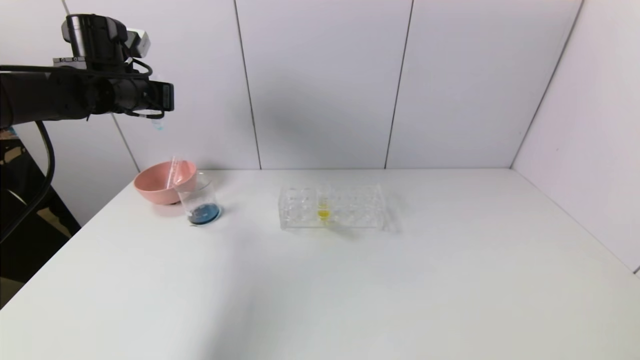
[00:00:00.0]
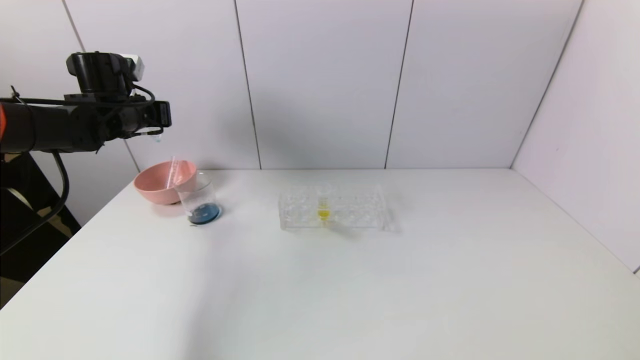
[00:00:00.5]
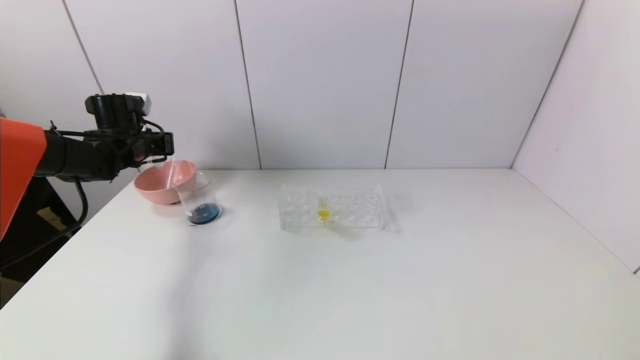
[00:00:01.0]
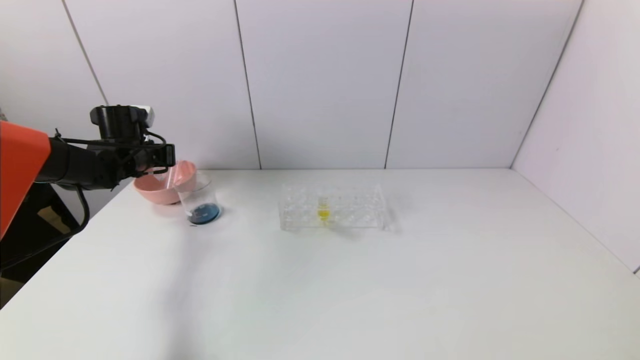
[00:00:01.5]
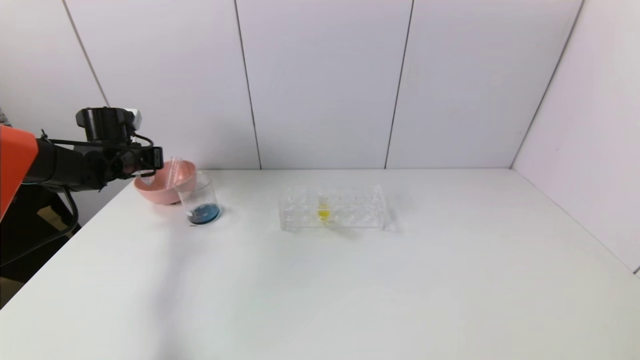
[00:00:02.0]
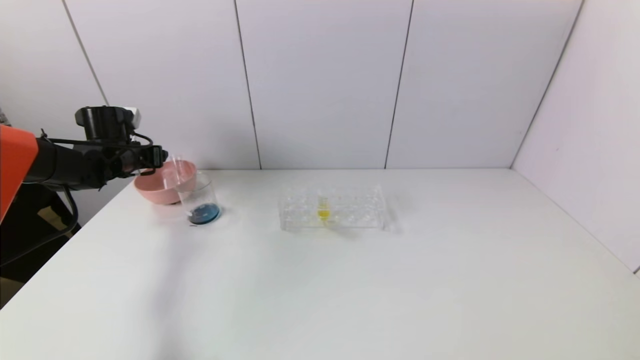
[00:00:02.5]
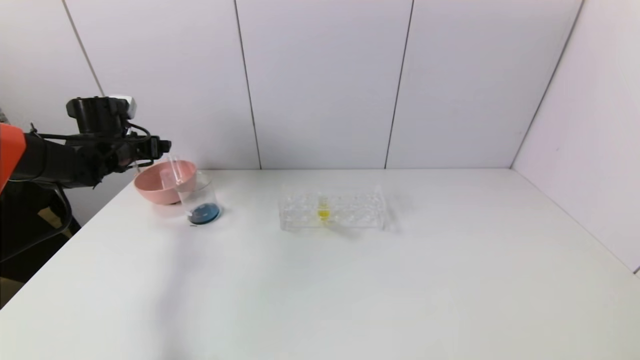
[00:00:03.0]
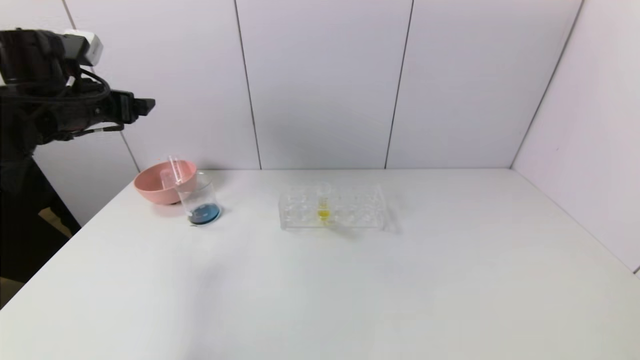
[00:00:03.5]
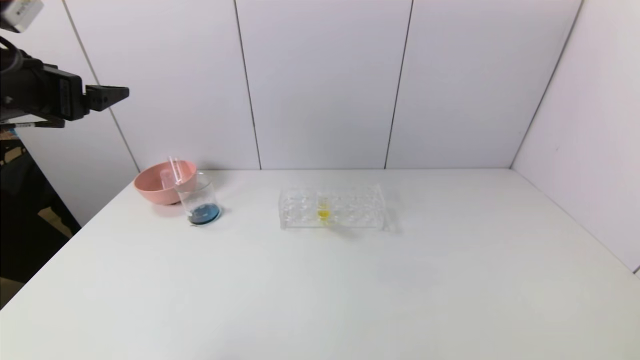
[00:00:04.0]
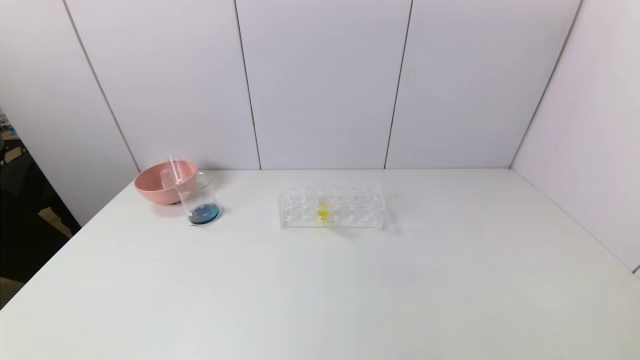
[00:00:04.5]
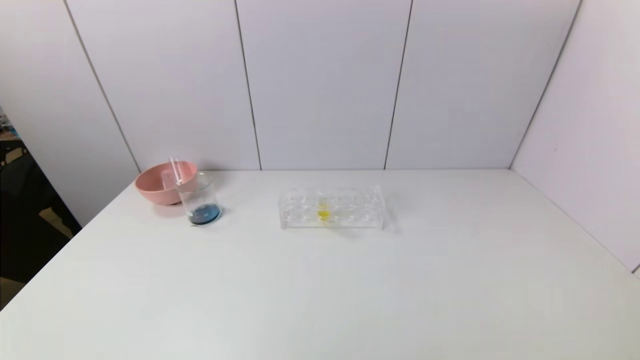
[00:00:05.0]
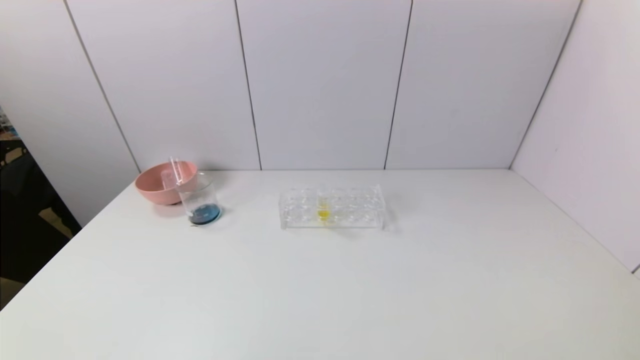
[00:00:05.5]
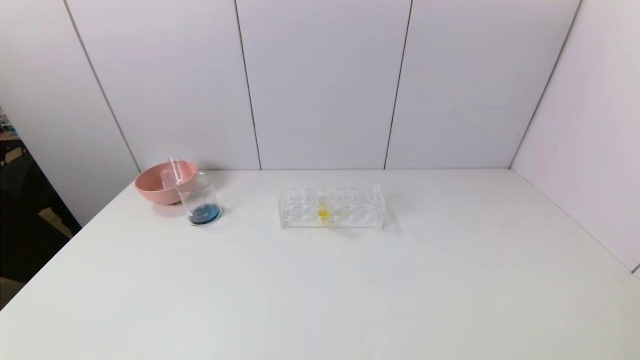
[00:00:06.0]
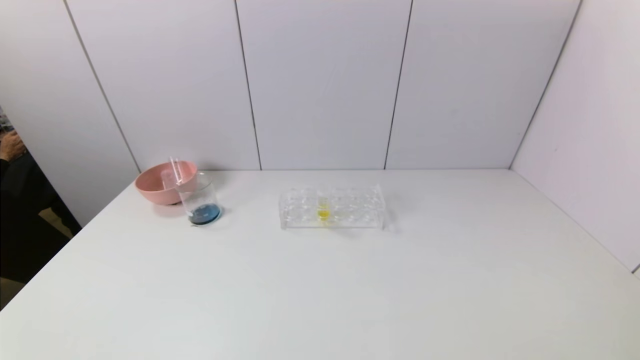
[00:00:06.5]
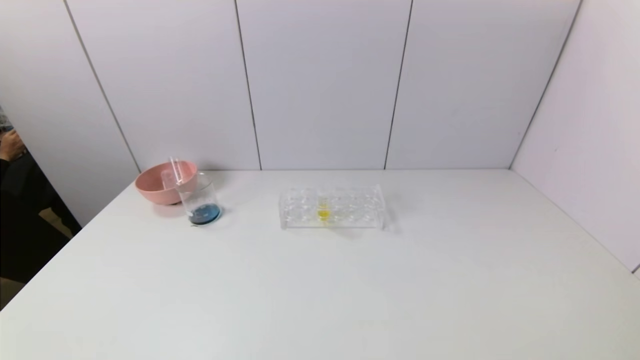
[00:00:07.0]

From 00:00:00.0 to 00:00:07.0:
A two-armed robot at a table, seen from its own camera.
Task of the whole recording: pick up the test tube with red pigment and the test tube with blue pigment by grippers and pour them into the container.
Step, from 00:00:00.0 to 00:00:03.5: Place the test tube into the bowl with the left gripper.
From 00:00:00.0 to 00:00:02.0: The left gripper moves downward and to the left, some 15 cm.
From 00:00:02.0 to 00:00:03.5: The left gripper travels upward and backward by about 15 cm, and opens up.
From 00:00:03.5 to 00:00:05.0: The left gripper heads backward, covering some 40 cm.
